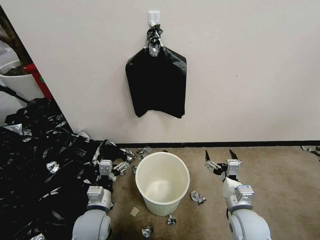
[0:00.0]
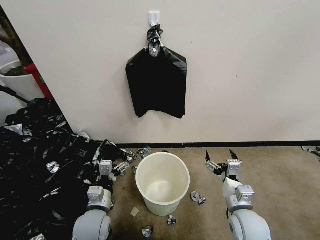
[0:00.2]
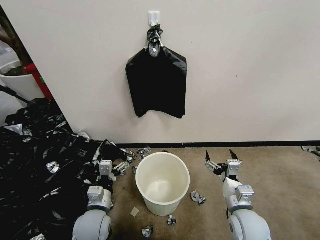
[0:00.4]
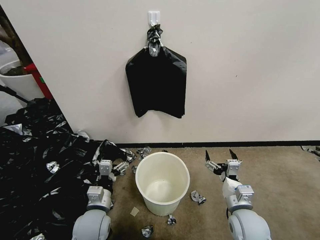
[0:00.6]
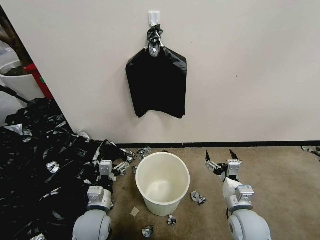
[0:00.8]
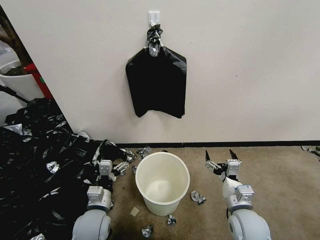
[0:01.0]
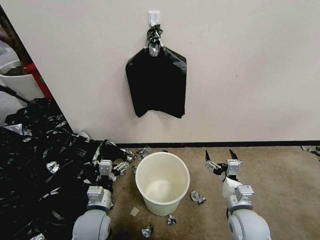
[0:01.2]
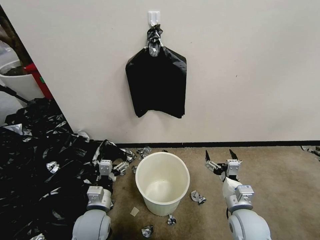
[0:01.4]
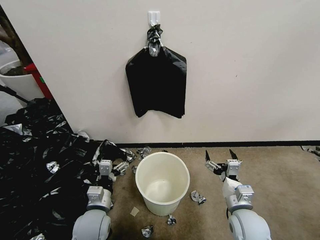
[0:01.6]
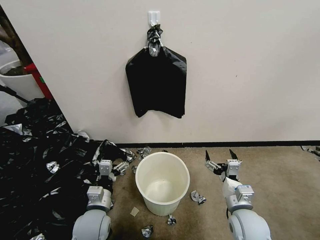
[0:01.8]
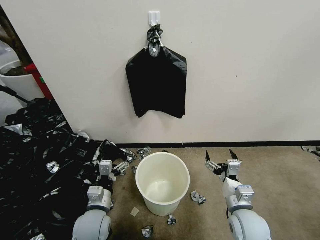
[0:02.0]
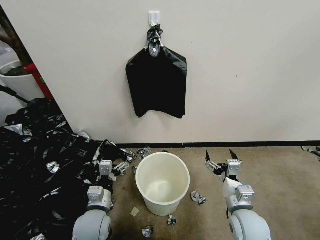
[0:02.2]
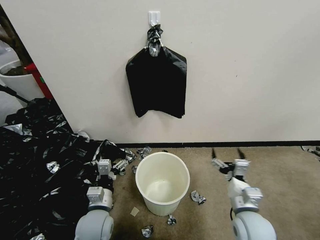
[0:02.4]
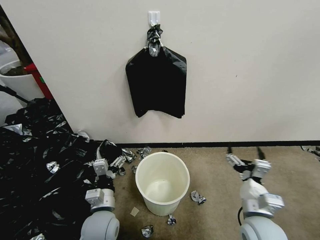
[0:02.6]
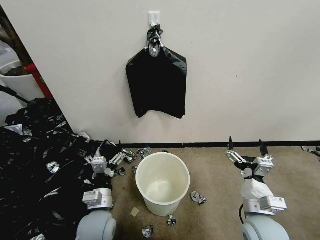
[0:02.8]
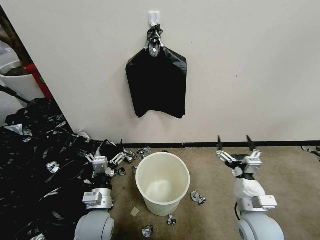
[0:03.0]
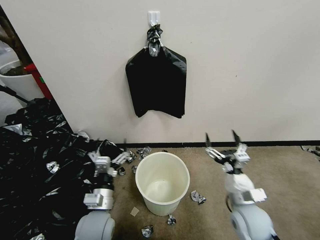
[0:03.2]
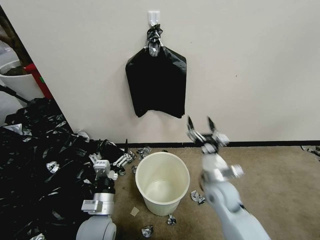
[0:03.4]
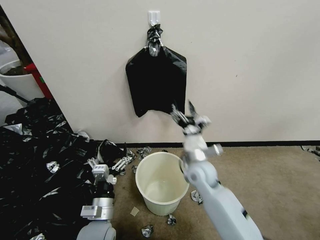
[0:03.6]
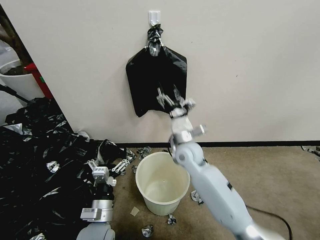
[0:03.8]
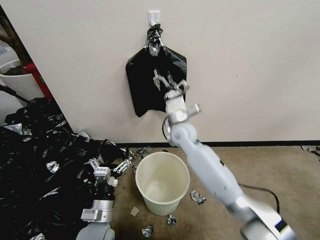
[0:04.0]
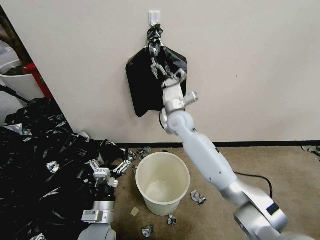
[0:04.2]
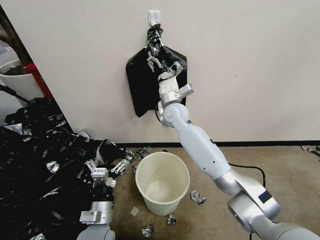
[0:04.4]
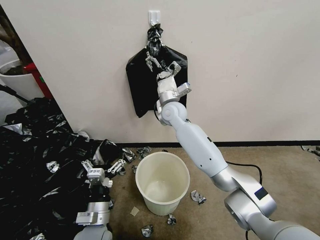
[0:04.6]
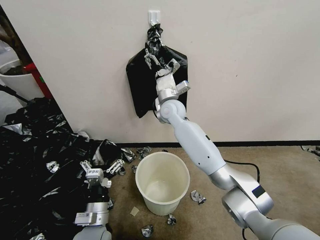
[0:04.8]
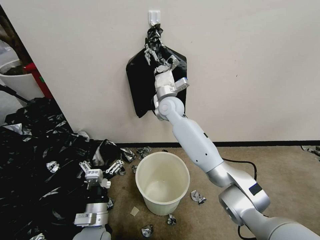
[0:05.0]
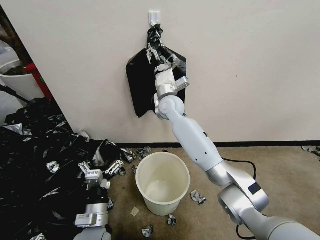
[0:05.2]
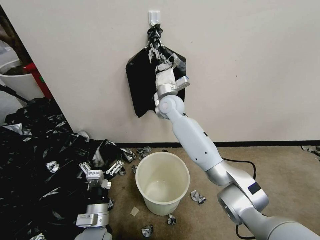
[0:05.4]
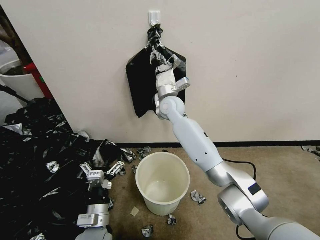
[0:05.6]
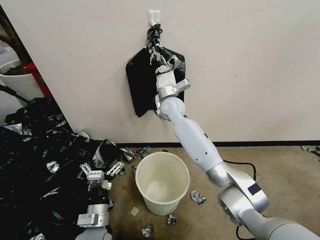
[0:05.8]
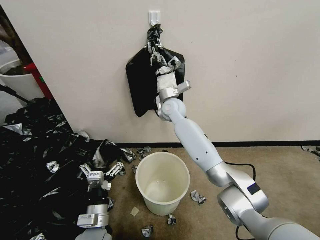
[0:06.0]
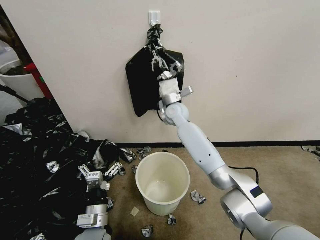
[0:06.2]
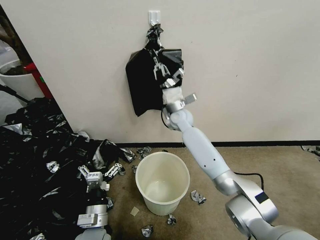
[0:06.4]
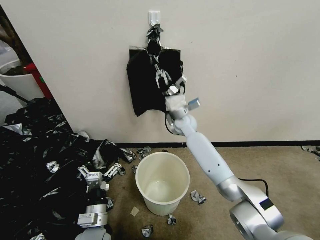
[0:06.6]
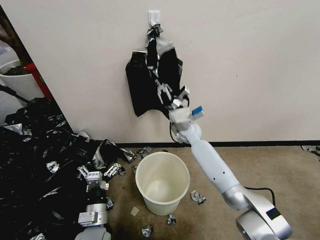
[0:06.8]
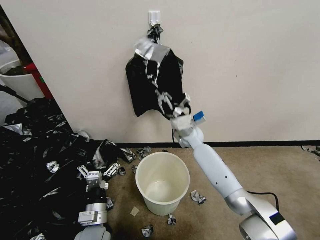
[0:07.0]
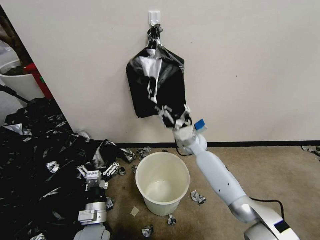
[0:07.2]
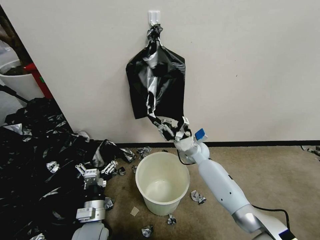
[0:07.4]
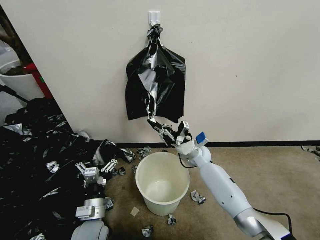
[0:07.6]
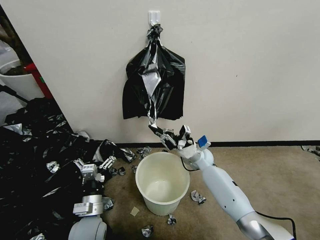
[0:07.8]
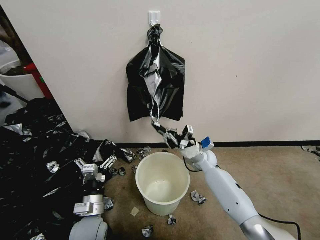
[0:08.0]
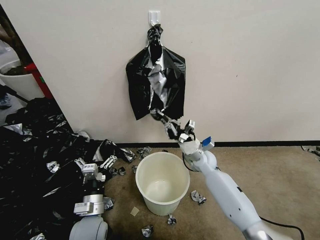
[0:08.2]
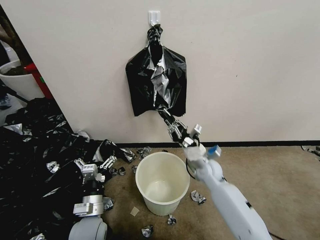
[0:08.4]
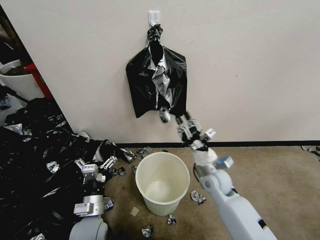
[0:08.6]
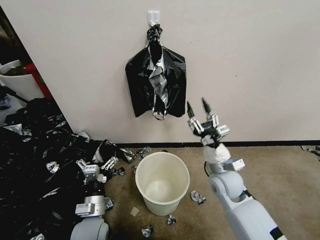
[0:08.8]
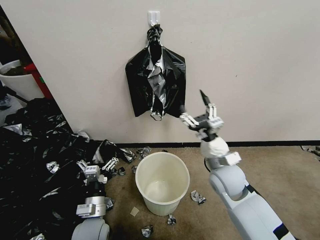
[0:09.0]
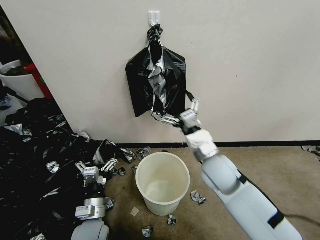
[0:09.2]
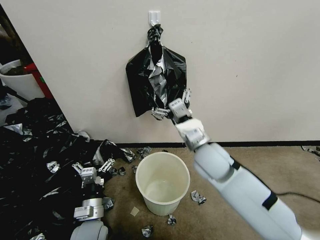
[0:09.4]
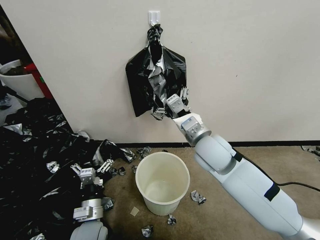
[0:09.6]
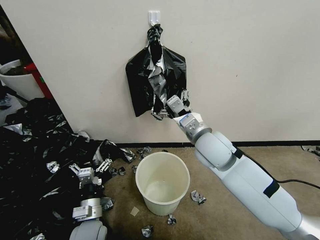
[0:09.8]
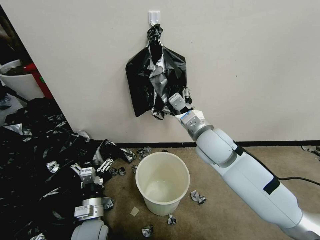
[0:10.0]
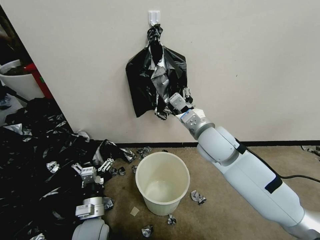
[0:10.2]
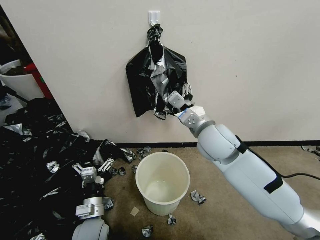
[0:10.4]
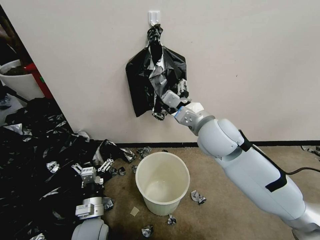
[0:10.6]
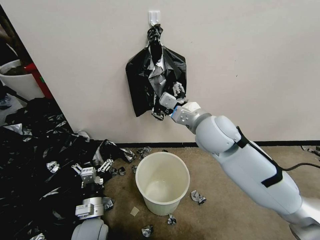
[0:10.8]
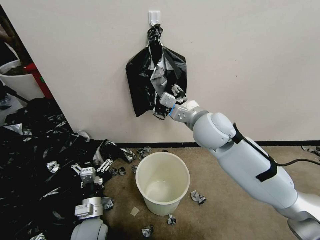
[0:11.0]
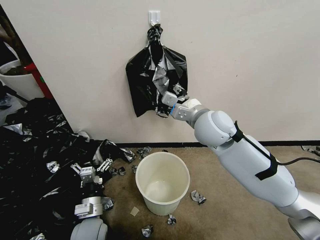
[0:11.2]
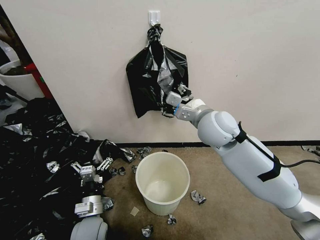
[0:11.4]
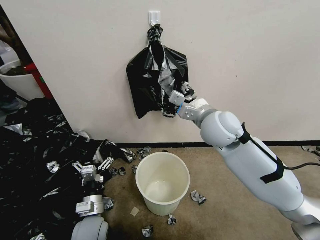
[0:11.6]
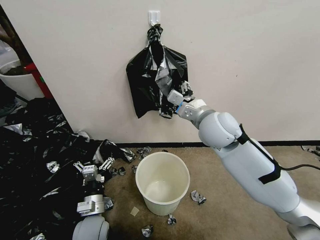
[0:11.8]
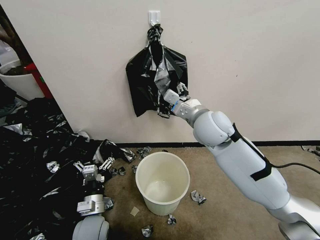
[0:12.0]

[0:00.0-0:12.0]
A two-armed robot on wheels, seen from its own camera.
Task of the whole recording: Place a trash bag onto the trash bin.
0:03.0 to 0:04.4: The right gripper travels forward, to the left and upward by about 40 cm.
0:04.4 to 0:06.0: The right gripper closes its fingers.
0:06.0 to 0:07.6: The right gripper shifts some 25 cm downward, to the right and backward.
0:07.6 to 0:09.0: The right gripper shifts approximately 20 cm backward and upward, and opens its fingers.
0:09.0 to 0:10.4: The right gripper goes about 15 cm upward and to the left.
0:10.4 to 0:12.0: The grippers move only a little.

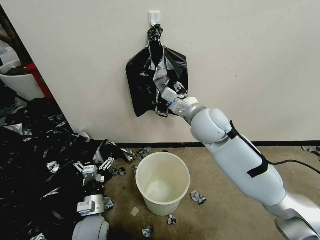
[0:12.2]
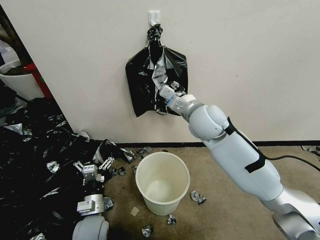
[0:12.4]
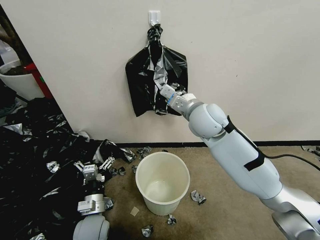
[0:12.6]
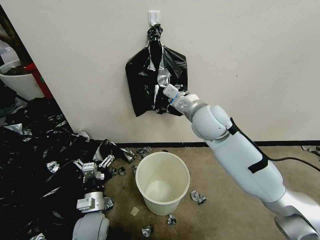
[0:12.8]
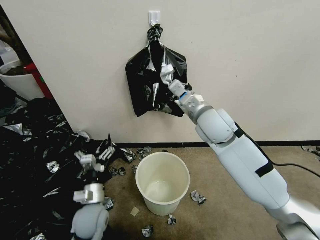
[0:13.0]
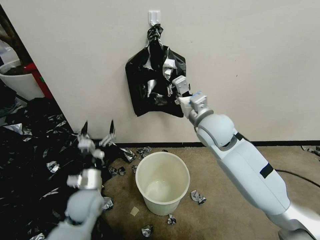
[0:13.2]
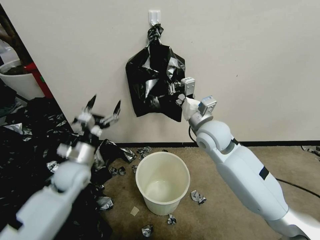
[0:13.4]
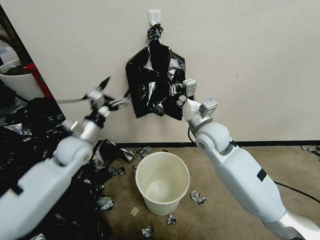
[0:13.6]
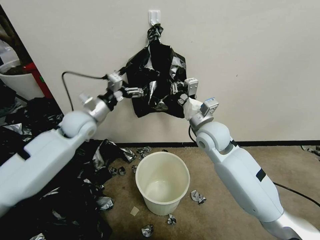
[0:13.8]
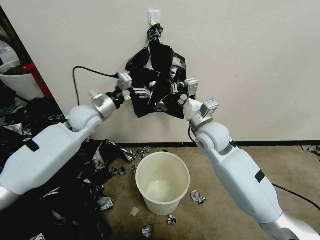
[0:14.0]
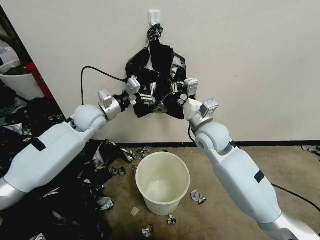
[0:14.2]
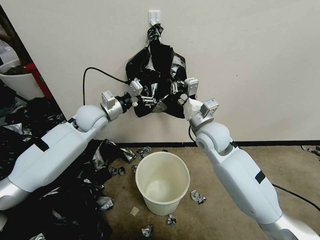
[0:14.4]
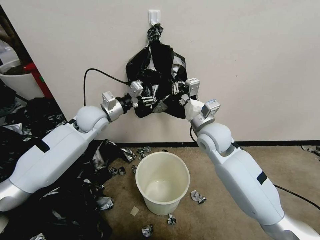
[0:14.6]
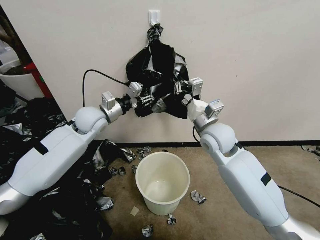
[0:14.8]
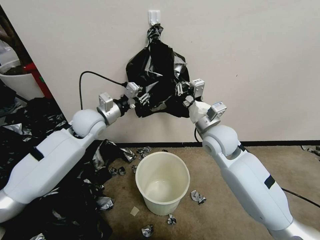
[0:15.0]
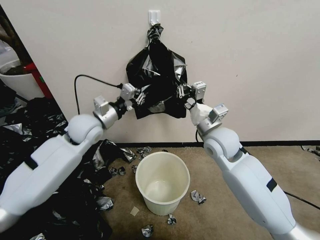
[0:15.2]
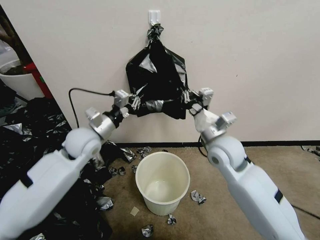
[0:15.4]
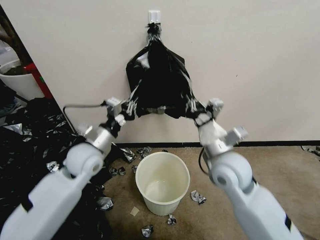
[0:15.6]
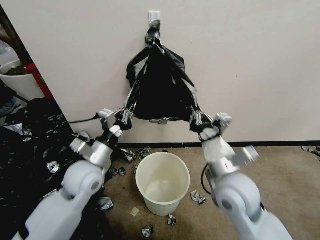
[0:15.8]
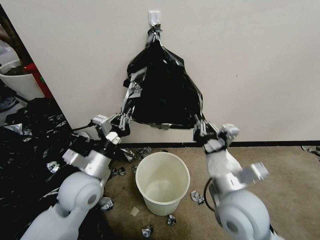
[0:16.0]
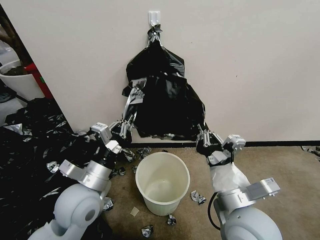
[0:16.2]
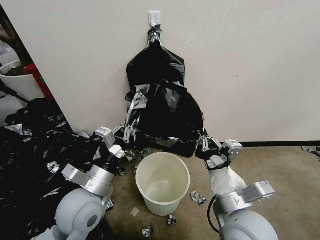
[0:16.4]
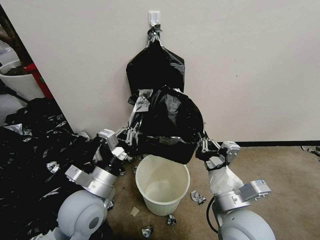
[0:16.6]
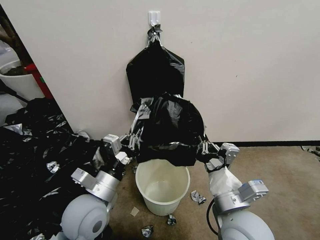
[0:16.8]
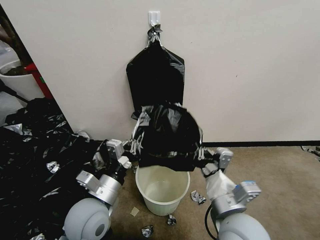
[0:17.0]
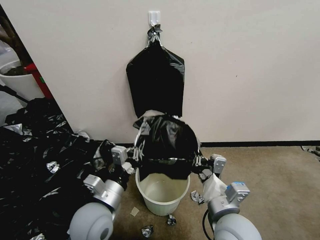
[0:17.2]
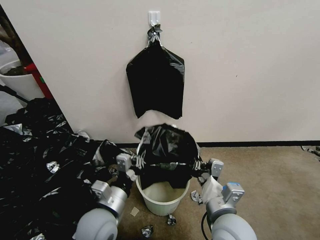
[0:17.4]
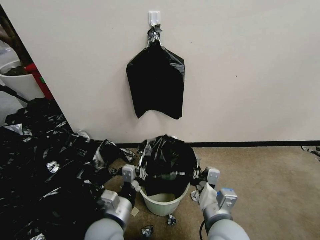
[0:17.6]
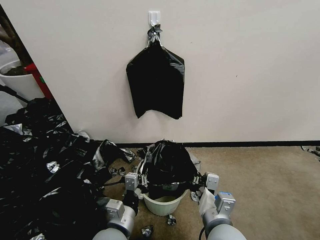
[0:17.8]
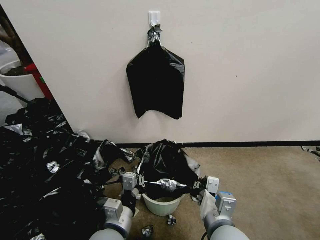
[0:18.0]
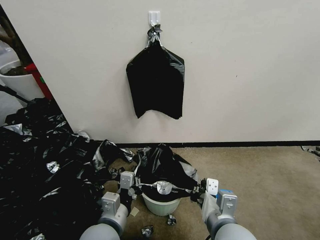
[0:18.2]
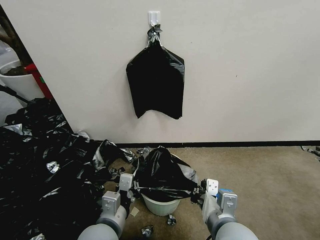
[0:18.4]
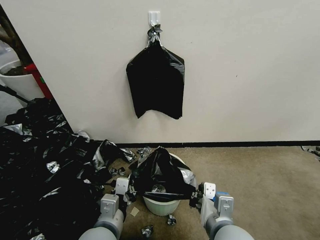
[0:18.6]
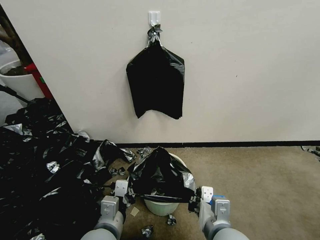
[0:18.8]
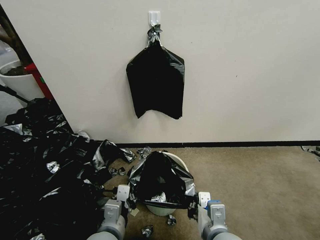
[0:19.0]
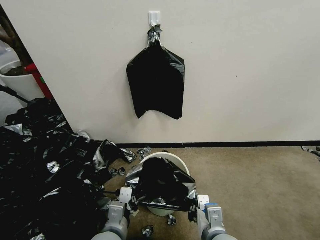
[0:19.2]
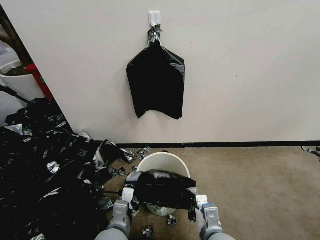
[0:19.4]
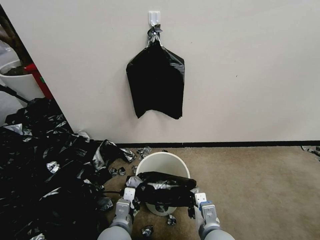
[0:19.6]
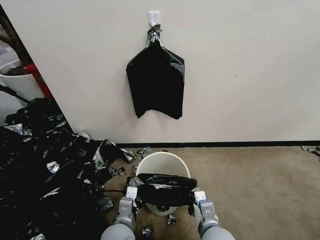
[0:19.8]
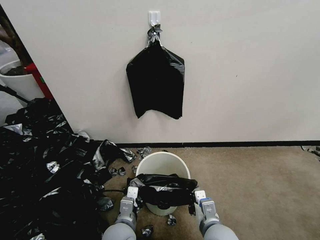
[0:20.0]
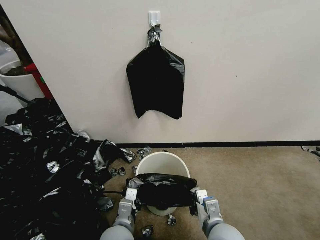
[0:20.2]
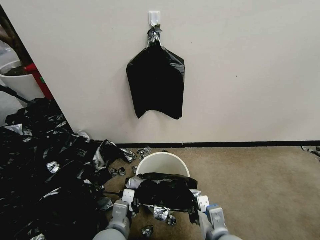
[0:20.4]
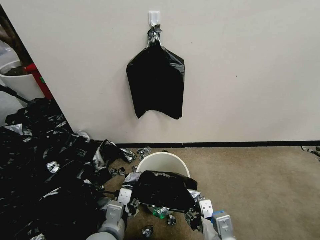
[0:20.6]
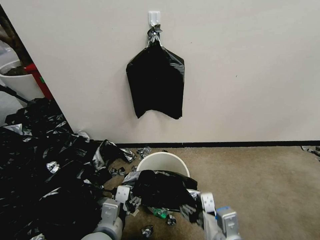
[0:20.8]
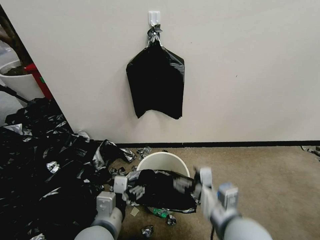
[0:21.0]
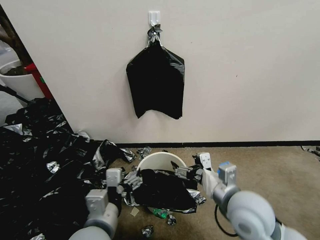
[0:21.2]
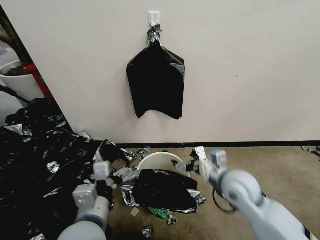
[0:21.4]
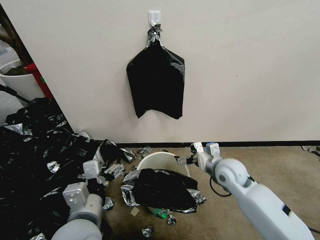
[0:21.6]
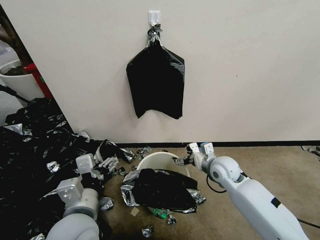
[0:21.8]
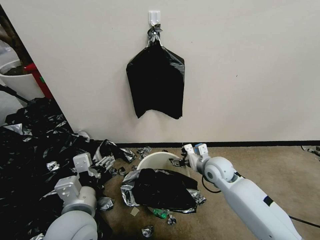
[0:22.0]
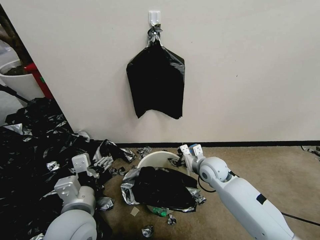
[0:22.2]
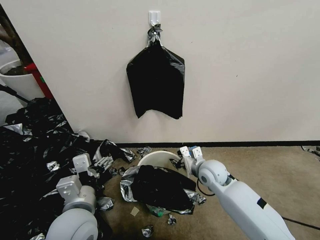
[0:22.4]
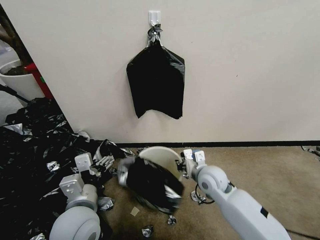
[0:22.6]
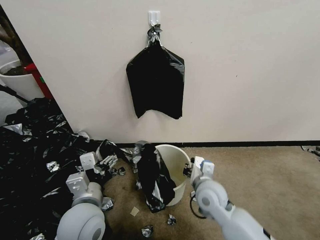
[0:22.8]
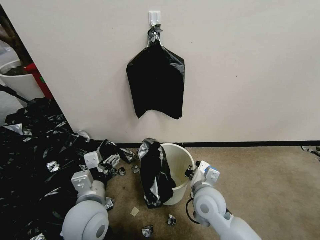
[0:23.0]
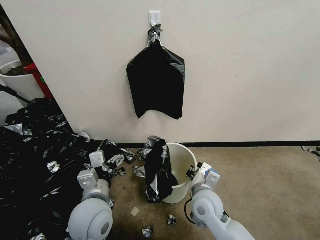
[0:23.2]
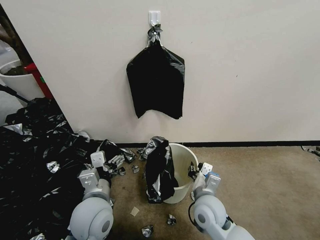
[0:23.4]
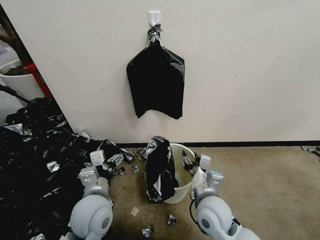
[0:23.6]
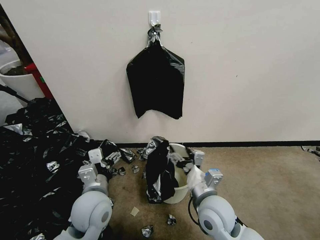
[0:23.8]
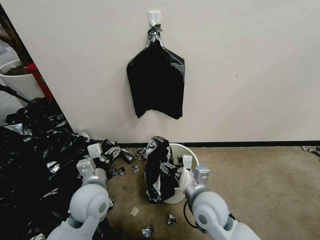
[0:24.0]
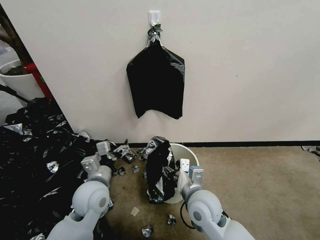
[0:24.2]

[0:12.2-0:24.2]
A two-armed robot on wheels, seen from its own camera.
Task of the whole recording: Place a trash bag onto the trash bin.
0:12.2 to 0:13.8: The right gripper is displaced downward by roughly 5 cm, and closes up. Meanwhile the left gripper moves forward and upward, about 35 cm.
0:13.8 to 0:15.2: The left gripper closes its fingers.
0:15.2 to 0:16.6: Both grippers travel together backward, roughly 20 cm.
0:16.6 to 0:18.2: The left gripper goes some 10 cm downward and backward.
0:18.2 to 0:19.8: The two grippers go some 10 cm downward.
0:19.8 to 0:21.2: The grippers both shift upward by about 15 cm. The right gripper opens, while the left gripper opens its fingers.
0:21.2 to 0:22.6: The left gripper changes place by some 5 cm. The right gripper moves forward and downward, roughly 15 cm, and closes.
0:22.6 to 0:24.2: The left gripper shifts about 10 cm forward and downward, while the right gripper moves backward and to the left, about 10 cm, and opens.
